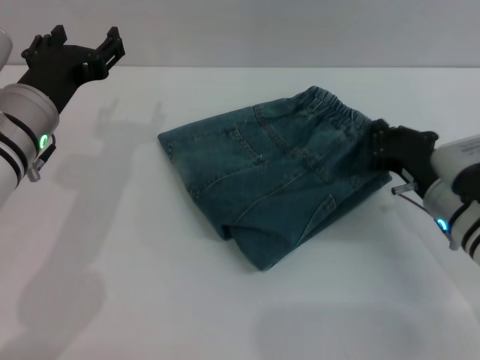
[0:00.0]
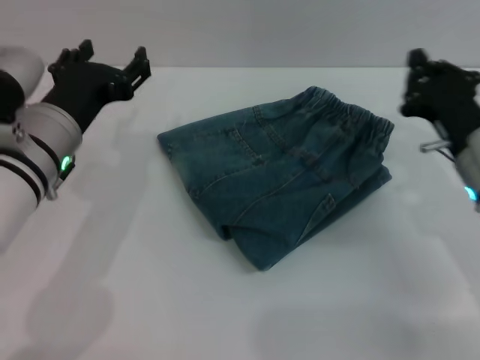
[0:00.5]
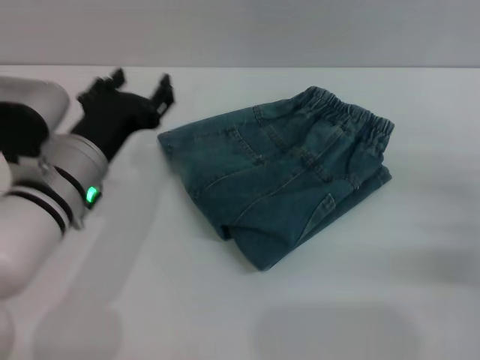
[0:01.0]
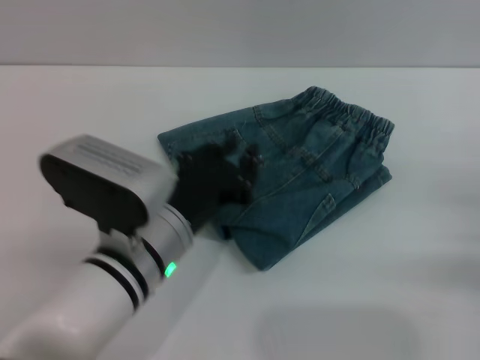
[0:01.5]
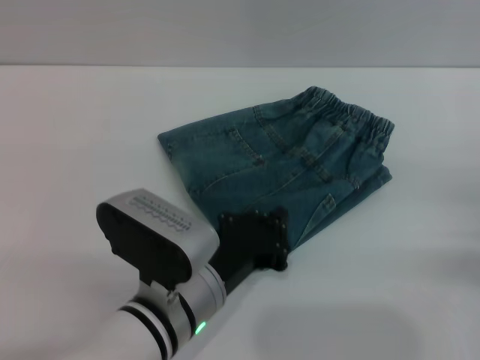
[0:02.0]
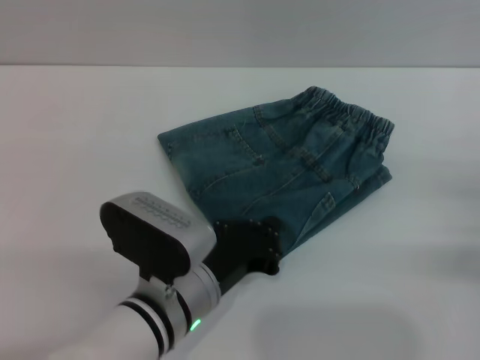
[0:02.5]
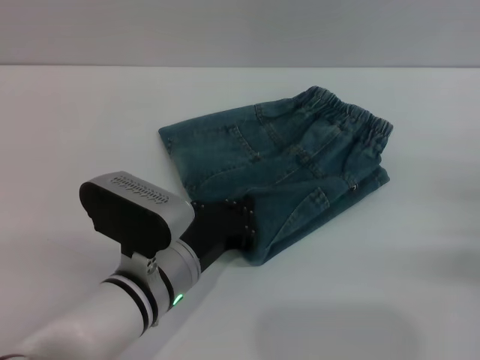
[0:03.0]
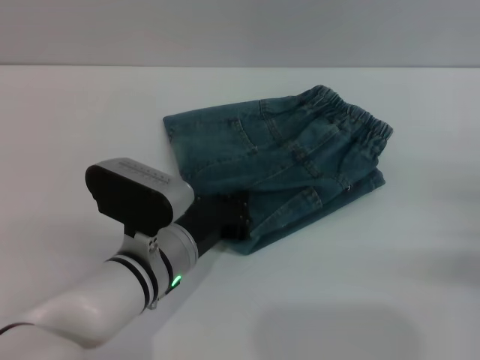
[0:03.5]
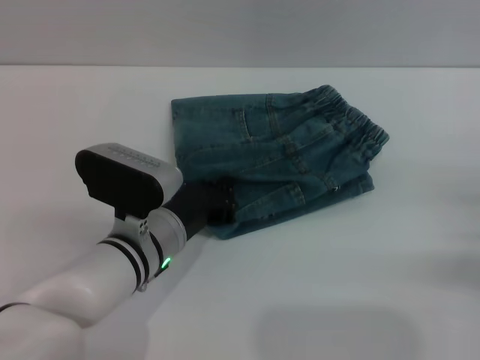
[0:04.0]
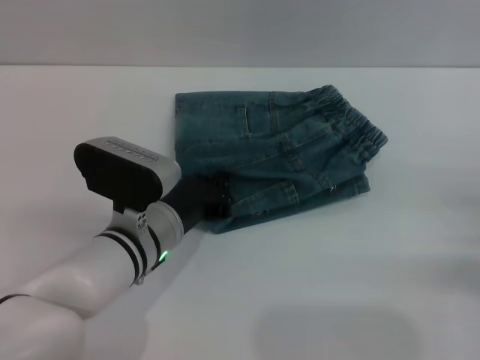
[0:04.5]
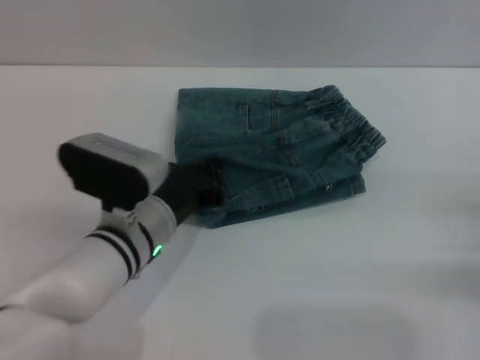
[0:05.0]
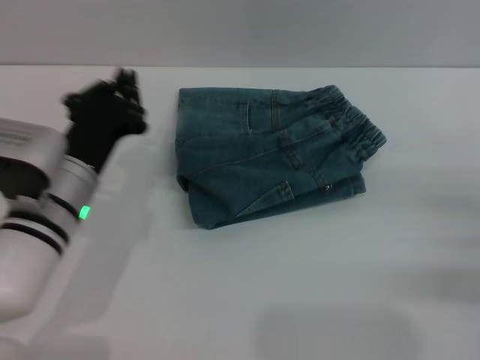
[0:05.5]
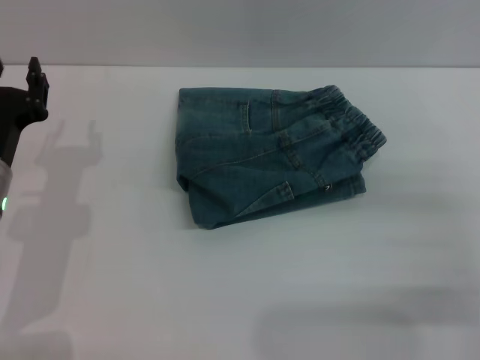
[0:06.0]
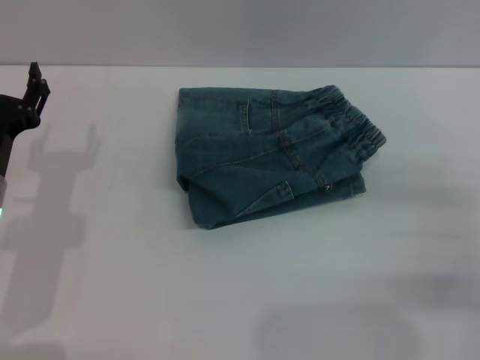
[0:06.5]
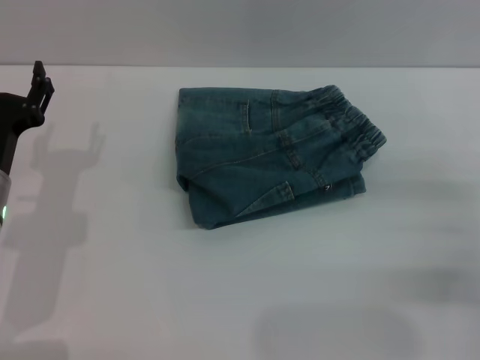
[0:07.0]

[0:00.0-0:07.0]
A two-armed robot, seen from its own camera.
Step, 0:00.0 to 0:04.0: Place the folded trousers onto the center area with the left grippers.
0:00.0 to 0:02.0: The left gripper heads to the right, backward and downward, covering roughly 20 cm, and closes, while the right gripper heads to the right and backward, covering roughly 15 cm.
0:02.0 to 0:03.5: The left gripper shifts roughly 5 cm forward.
0:03.5 to 0:05.0: The grippers move only a little.
0:05.0 to 0:07.0: The right gripper opens. Meanwhile the left gripper is displaced to the left by about 15 cm, and opens.
